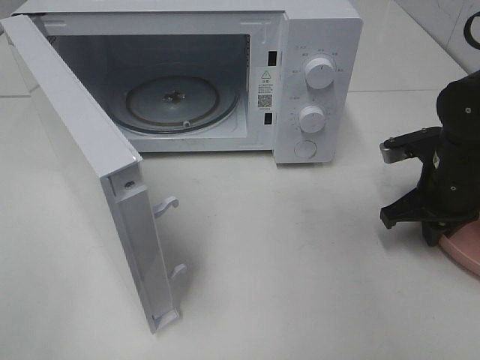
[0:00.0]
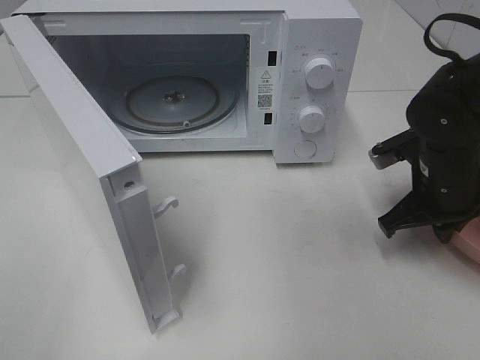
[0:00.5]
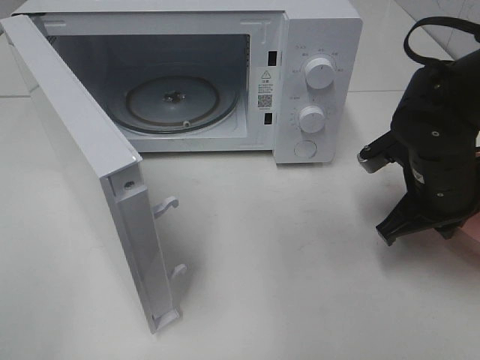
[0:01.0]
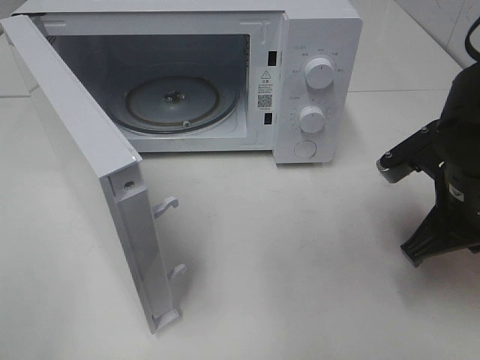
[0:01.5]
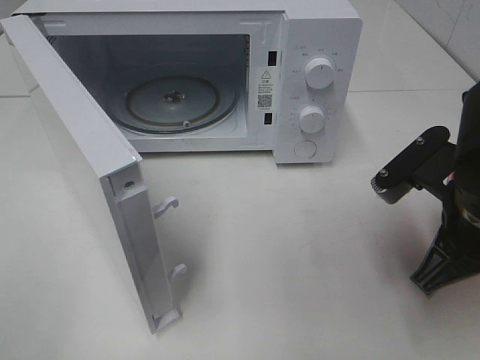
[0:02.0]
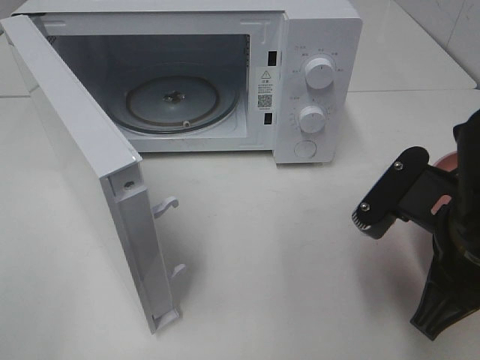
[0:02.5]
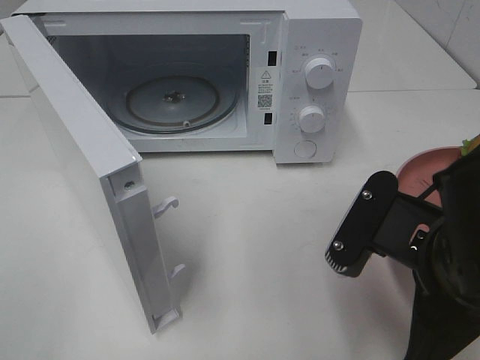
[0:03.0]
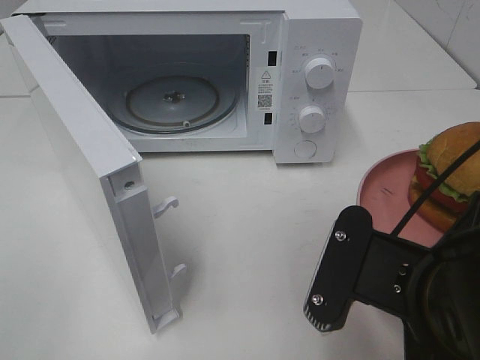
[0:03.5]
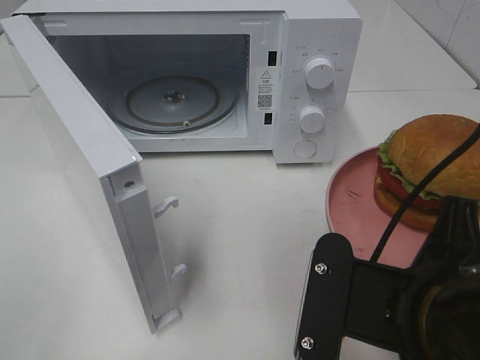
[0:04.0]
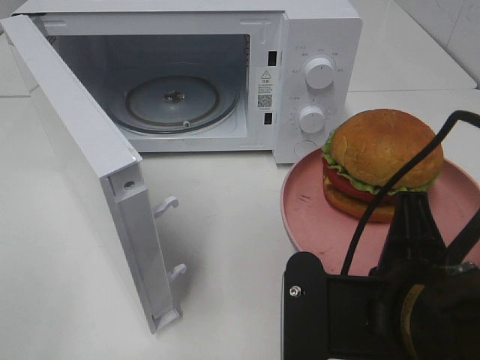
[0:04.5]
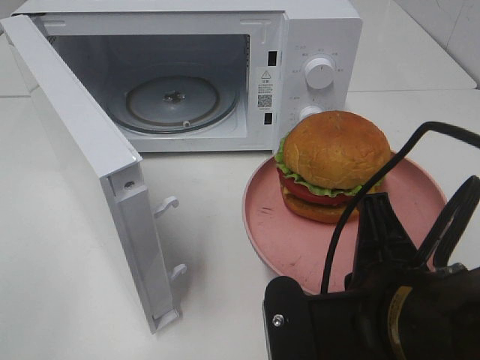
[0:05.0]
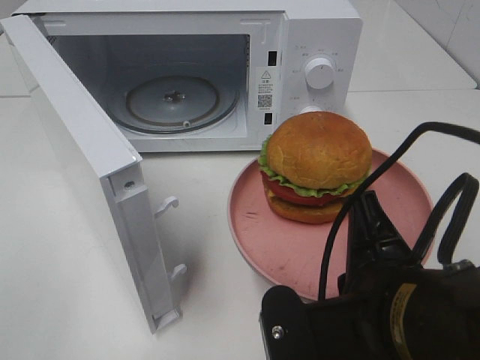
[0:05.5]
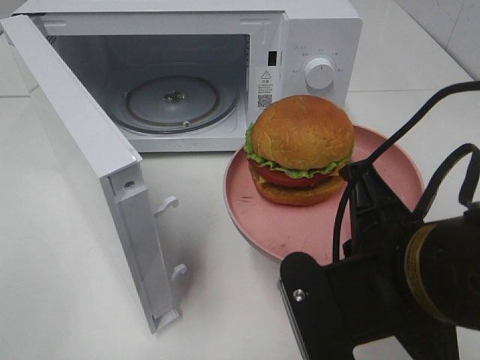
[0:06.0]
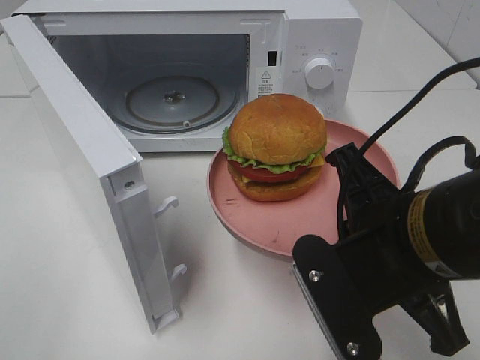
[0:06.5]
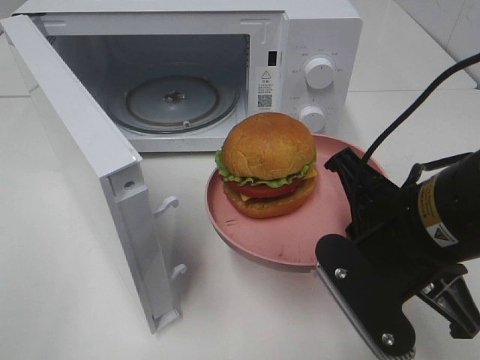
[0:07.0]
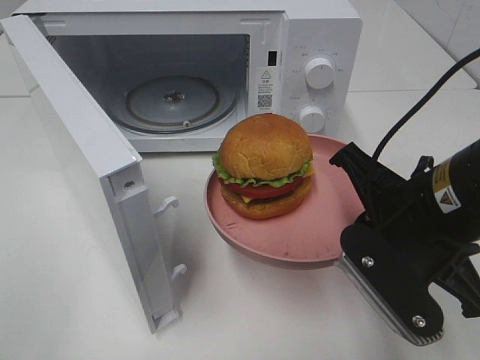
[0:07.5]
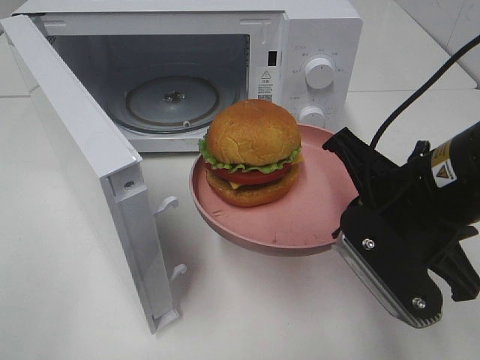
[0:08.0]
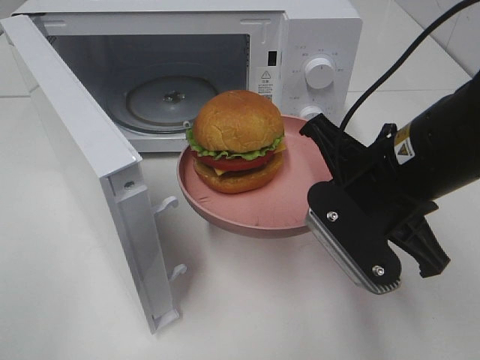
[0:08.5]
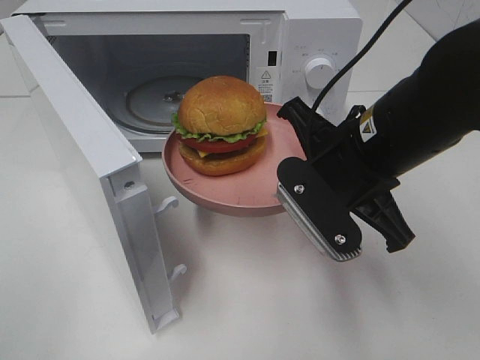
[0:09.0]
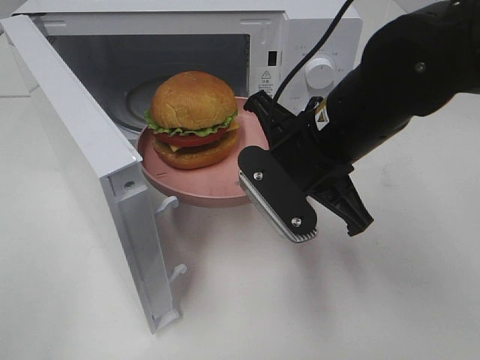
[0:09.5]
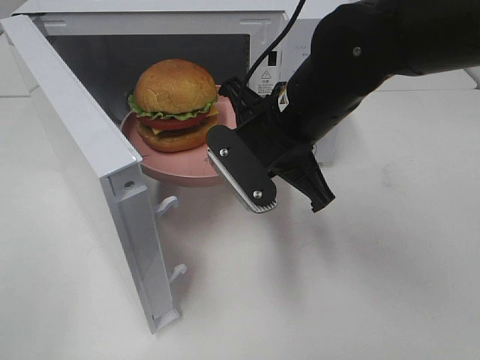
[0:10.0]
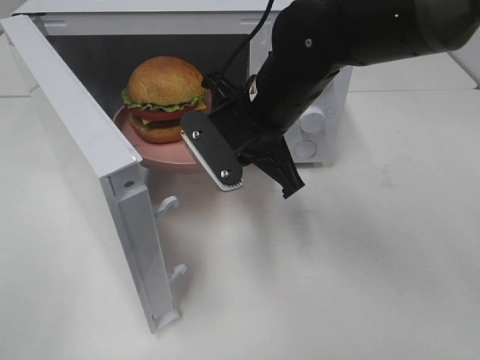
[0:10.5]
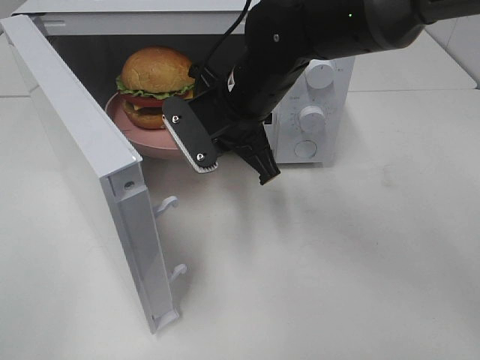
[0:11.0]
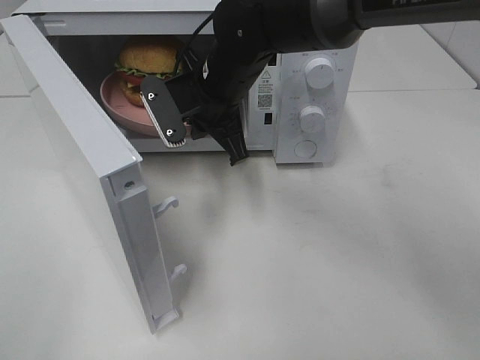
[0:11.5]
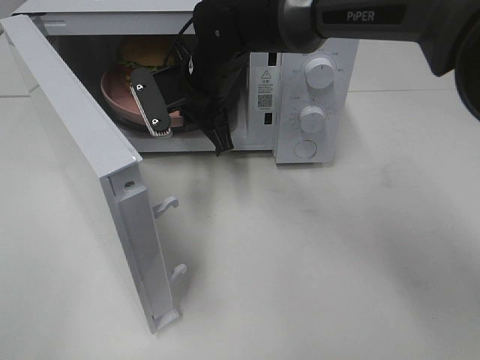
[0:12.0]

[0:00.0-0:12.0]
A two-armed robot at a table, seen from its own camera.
Task of the whole recording: Heat the burger.
0:00.0 to 0:02.0: The right gripper moves backward, upward and to the left, roughly 15 cm.
0:02.0 to 0:04.0: The right gripper moves backward and to the left, about 15 cm.
0:06.0 to 0:08.0: The right gripper heads forward, covering about 5 cm.
0:08.0 to 0:10.0: The right gripper moves forward and to the left, about 15 cm.
0:10.0 to 0:12.0: The right gripper heads forward and to the left, covering roughly 15 cm.

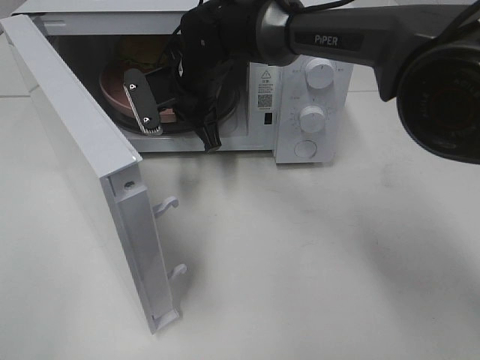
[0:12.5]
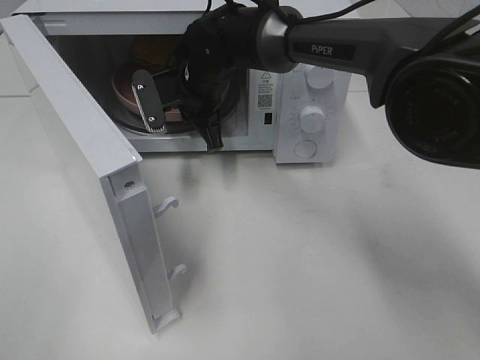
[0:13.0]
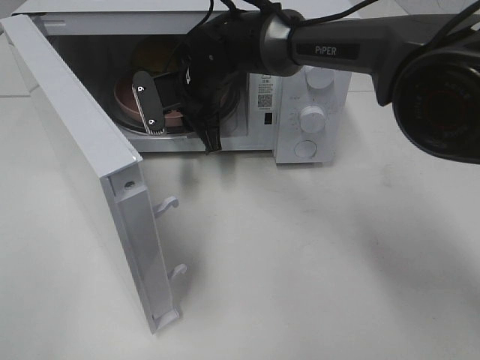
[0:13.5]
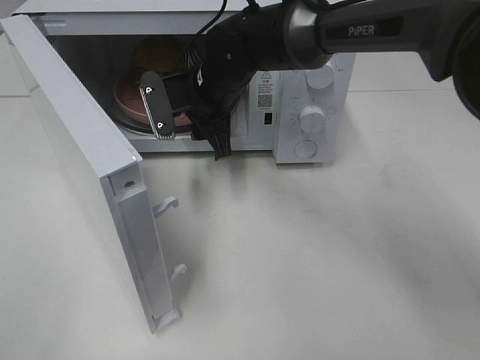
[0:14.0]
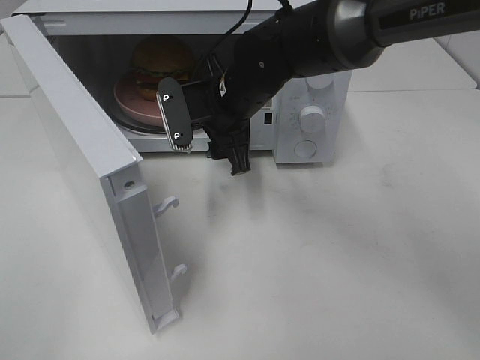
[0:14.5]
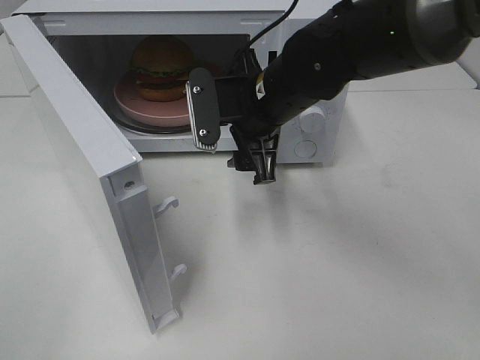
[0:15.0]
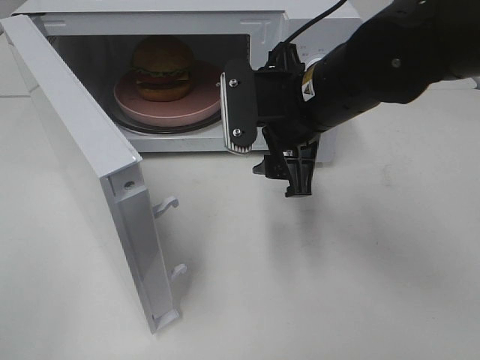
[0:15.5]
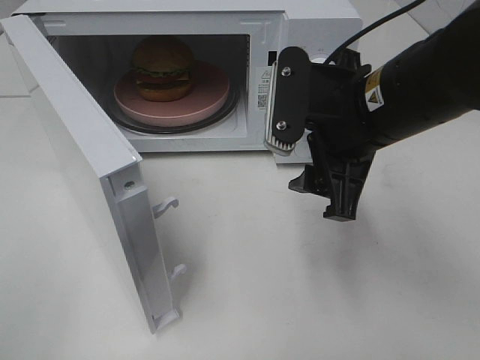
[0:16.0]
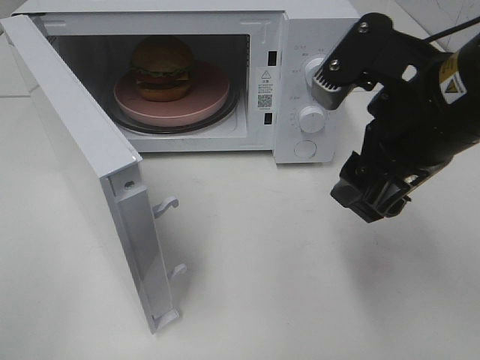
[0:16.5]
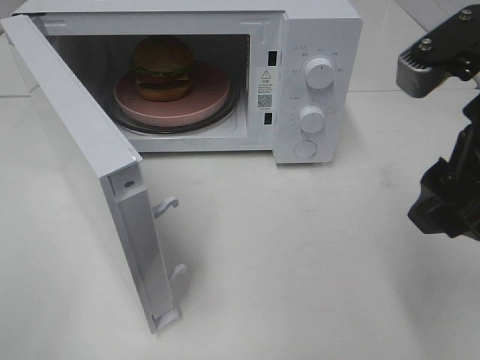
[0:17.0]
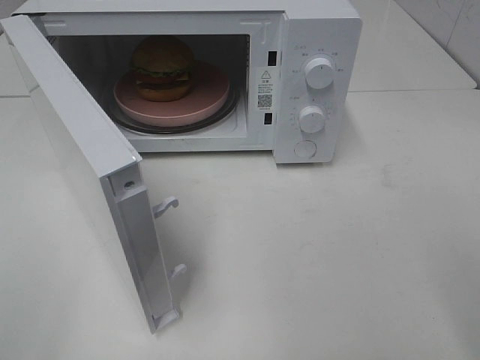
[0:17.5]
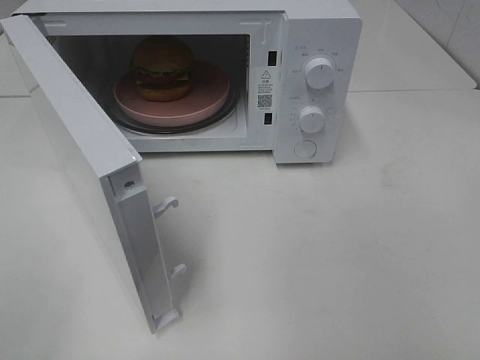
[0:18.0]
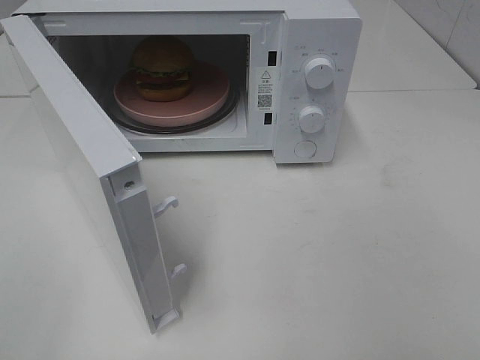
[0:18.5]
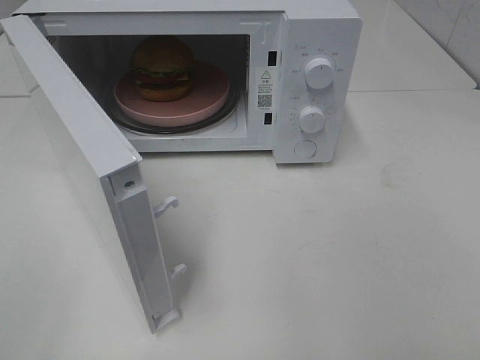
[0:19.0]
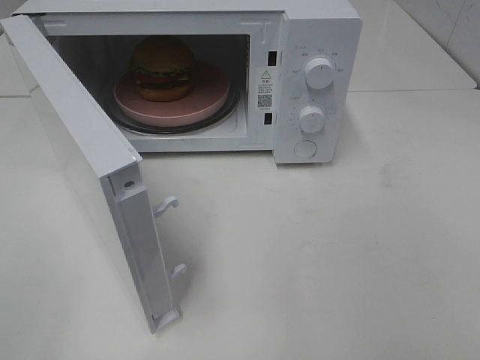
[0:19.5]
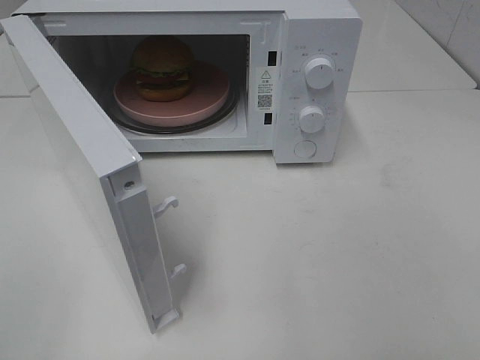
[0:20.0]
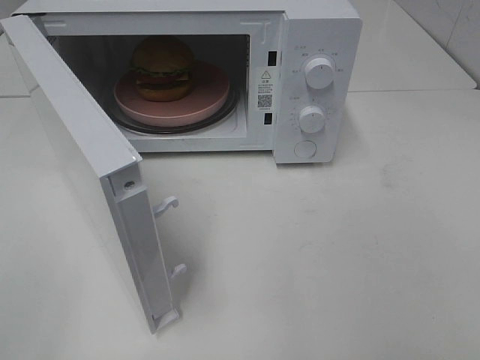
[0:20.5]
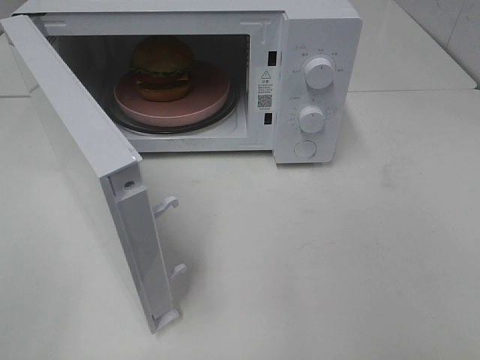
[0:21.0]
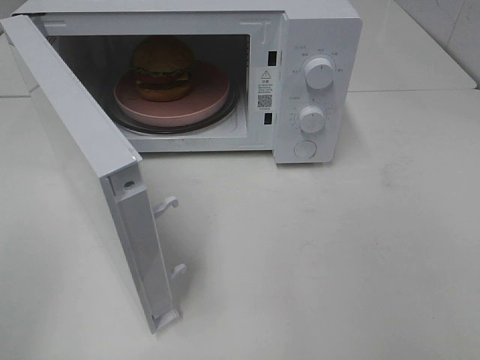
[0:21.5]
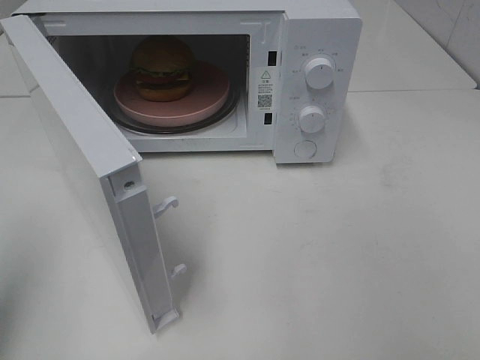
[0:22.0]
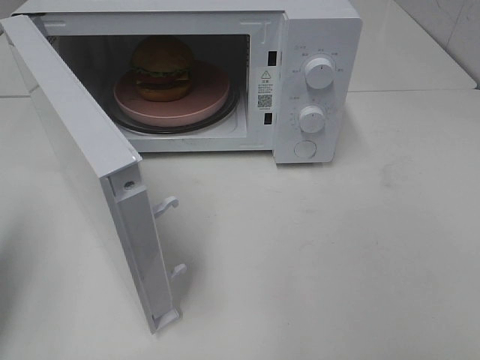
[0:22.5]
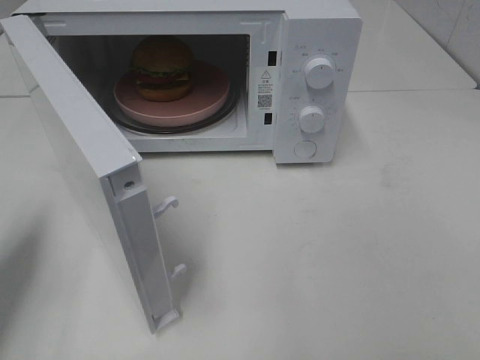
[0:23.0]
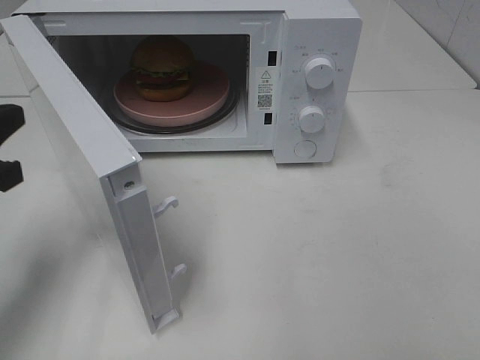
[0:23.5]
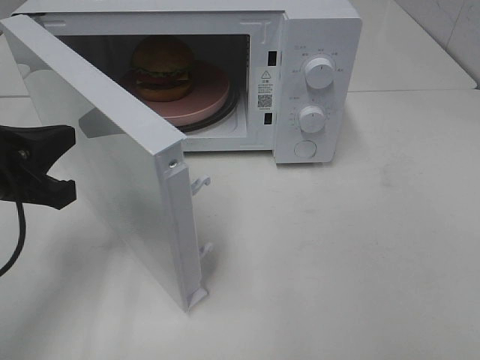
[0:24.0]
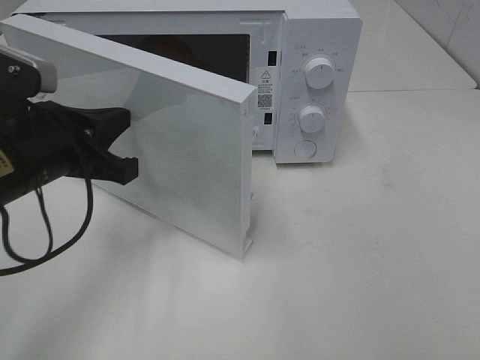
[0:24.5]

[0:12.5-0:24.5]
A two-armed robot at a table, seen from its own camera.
Task of the whole recording: Heat the burger.
0:12.5 to 0:14.5: The right gripper shifts approximately 5 cm backward and to the right, and opens.
0:14.5 to 0:16.5: The right gripper shifts roughly 25 cm backward, to the right and upward.
0:16.5 to 0:18.5: The right gripper goes approximately 25 cm backward and to the right.
0:20.5 to 0:22.5: The left gripper heads forward, covering about 15 cm, and closes.
0:22.5 to 0:24.5: The left gripper heads to the right and forward, covering about 15 cm.

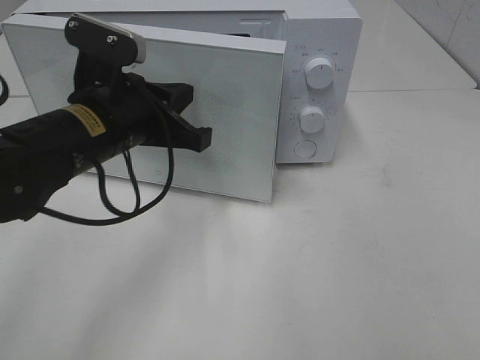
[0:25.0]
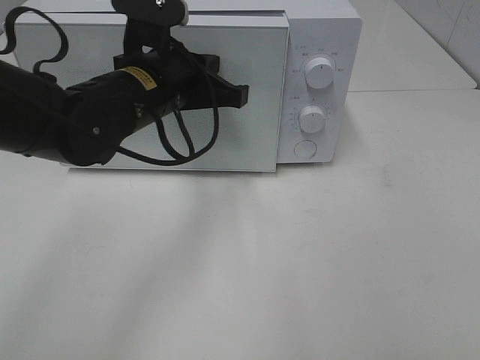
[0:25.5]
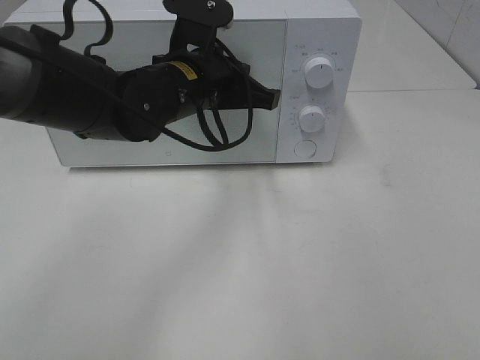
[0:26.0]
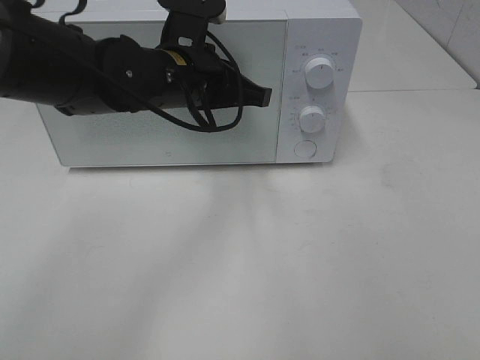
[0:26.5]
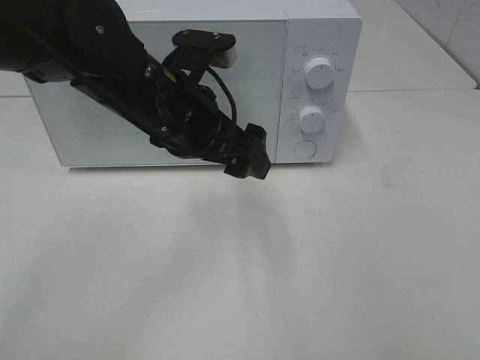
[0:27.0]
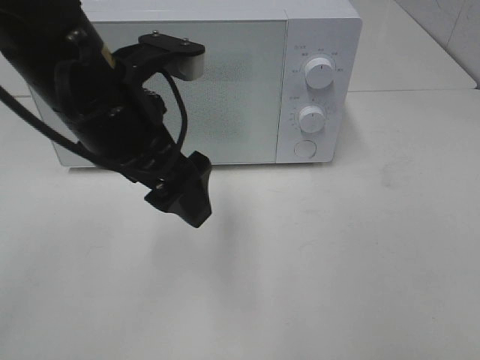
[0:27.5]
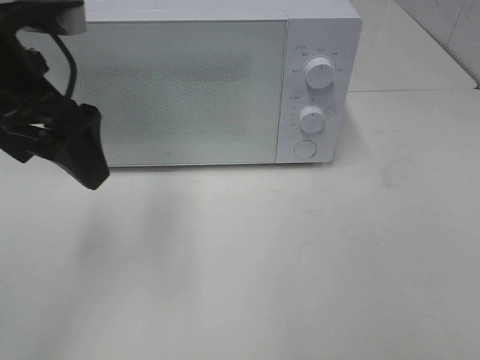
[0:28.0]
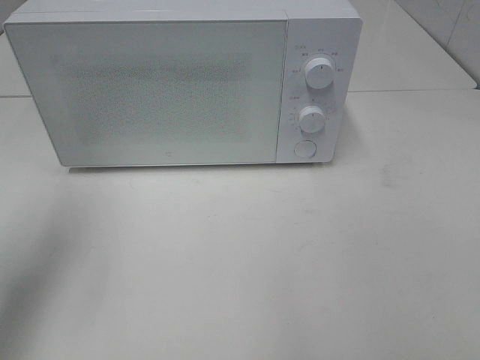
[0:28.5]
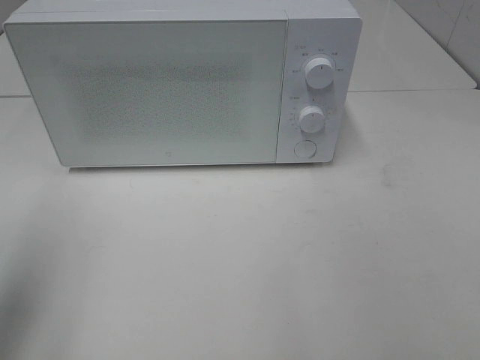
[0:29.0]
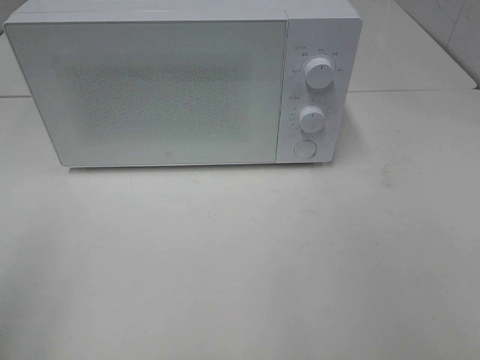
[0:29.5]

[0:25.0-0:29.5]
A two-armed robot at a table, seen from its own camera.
Task of the whole recording: Heat the burger.
0:25.0 to 0:27.0: The left gripper shifts about 5 cm to the right, and opens up.
0:27.0 to 0:29.5: The left gripper moves to the left and backward, approximately 35 cm.
